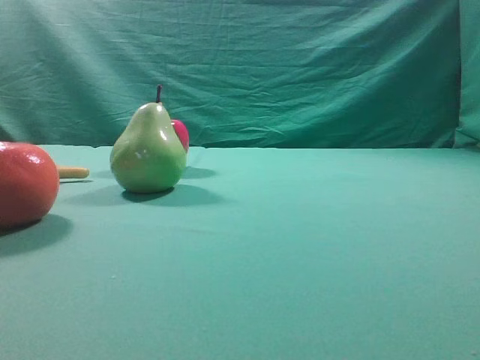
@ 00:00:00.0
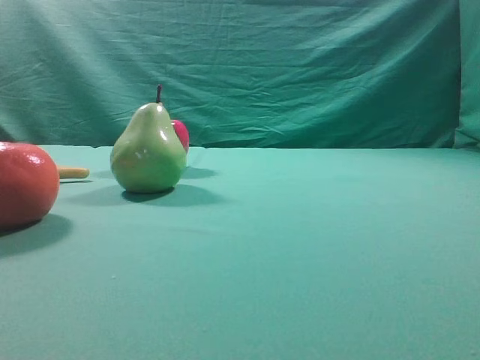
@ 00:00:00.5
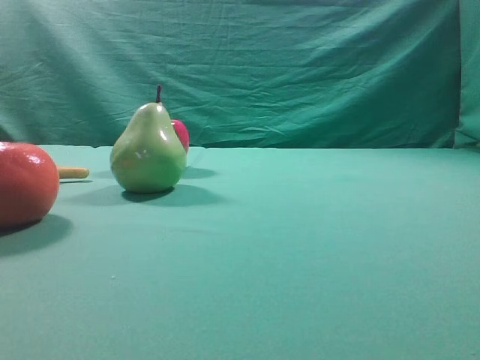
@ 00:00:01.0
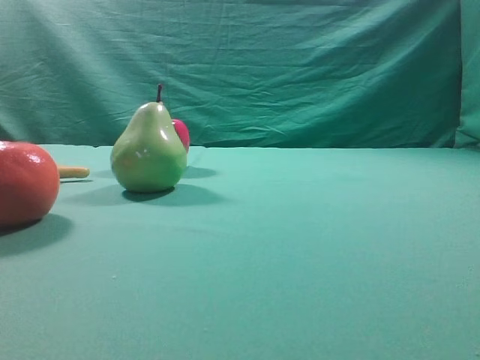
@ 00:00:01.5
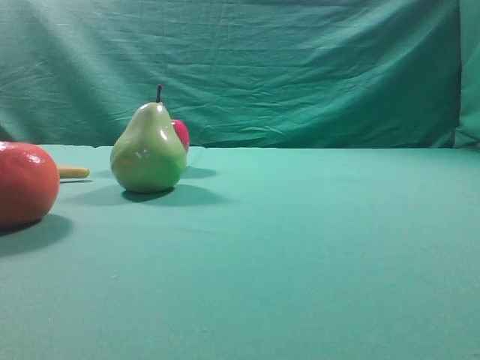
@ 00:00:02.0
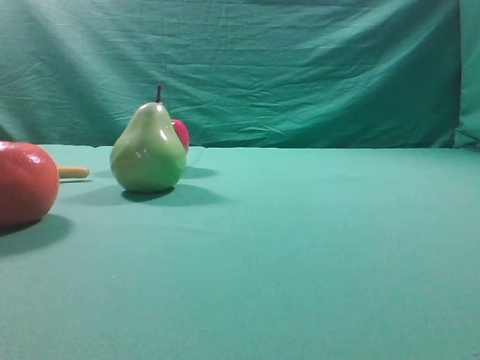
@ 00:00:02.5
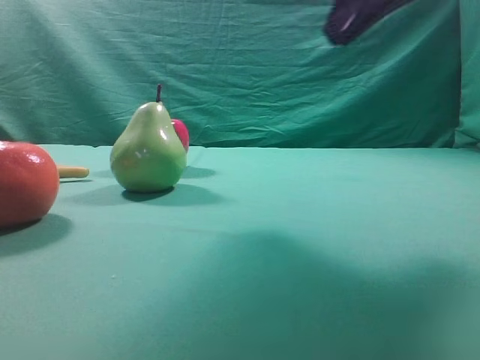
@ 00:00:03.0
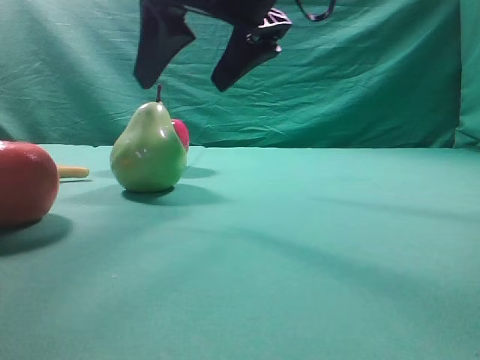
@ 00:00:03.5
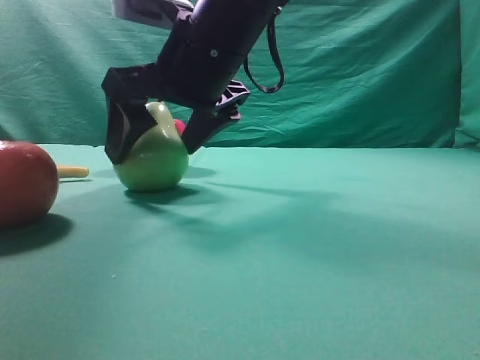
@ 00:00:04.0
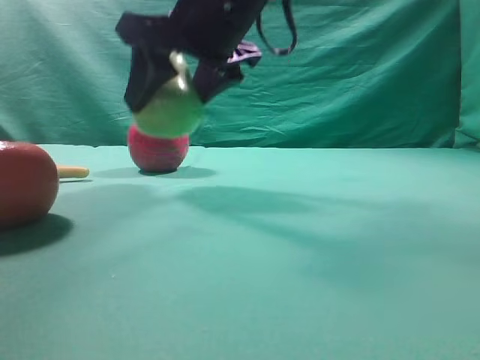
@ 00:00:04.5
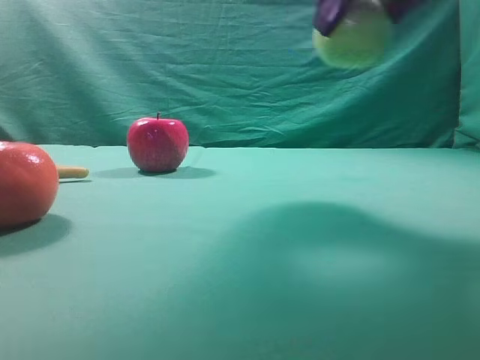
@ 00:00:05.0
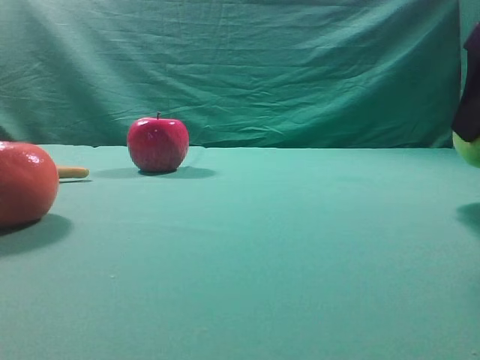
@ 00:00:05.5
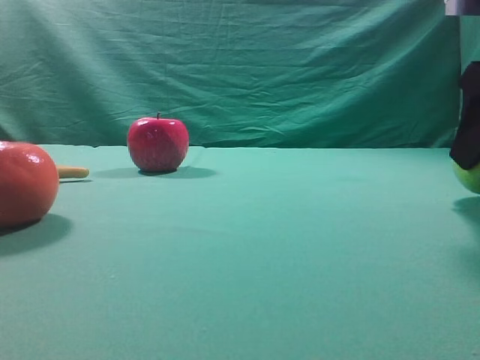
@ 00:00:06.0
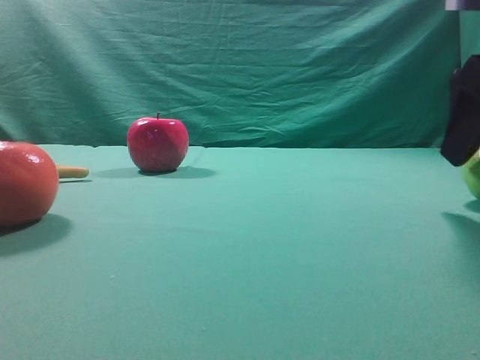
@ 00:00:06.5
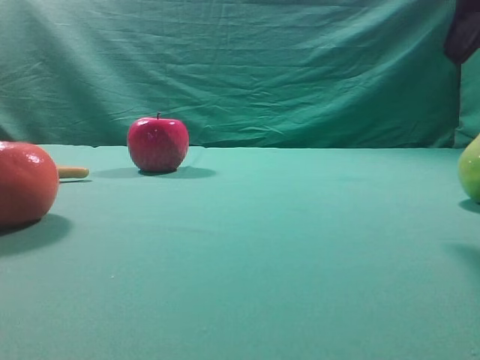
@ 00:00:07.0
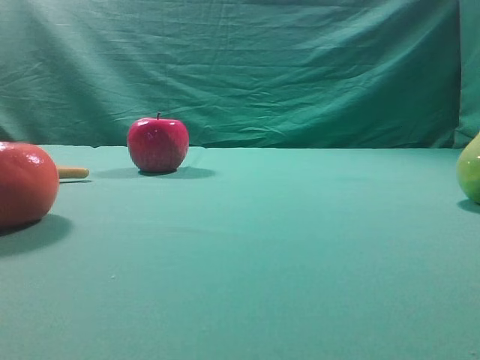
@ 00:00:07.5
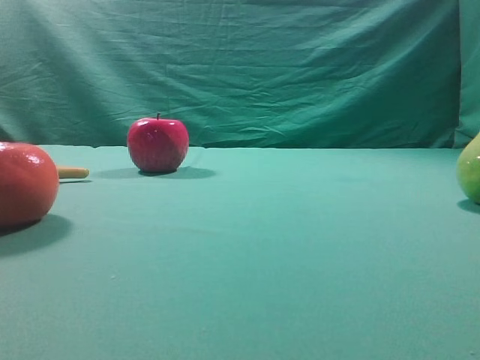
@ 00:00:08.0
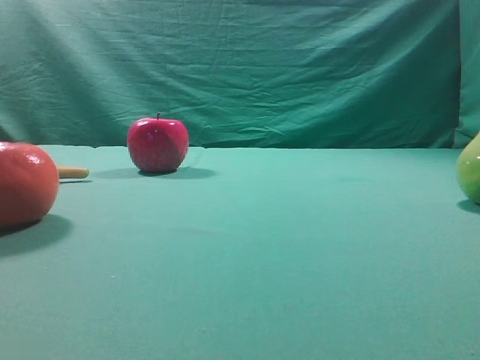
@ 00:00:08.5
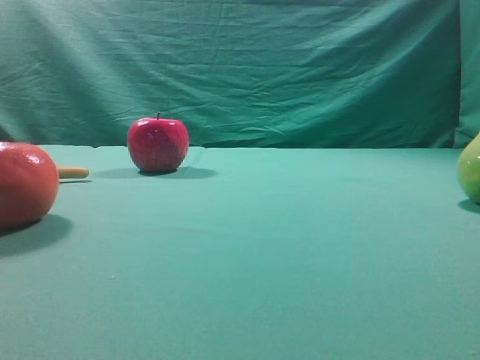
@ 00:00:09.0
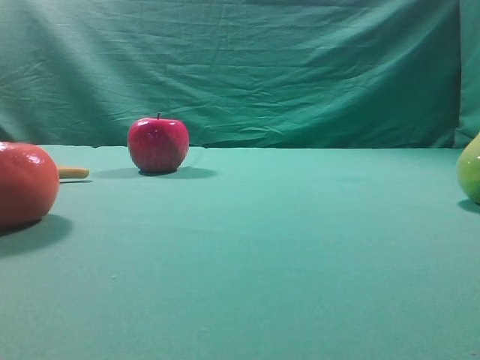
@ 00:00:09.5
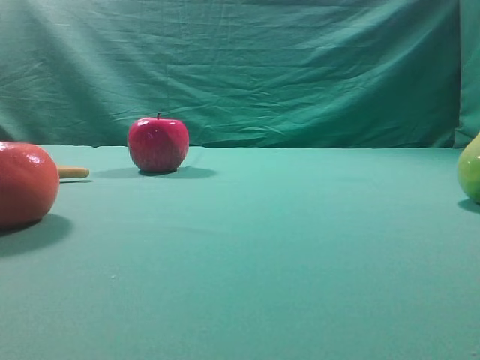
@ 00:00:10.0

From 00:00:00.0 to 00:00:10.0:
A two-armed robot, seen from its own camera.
Task of the whole recording: Grasp the pear and place it on one side of the table.
Step, from 00:00:00.0 to 00:00:04.0: Grasp the high-fiber fruit.
Step, from 00:00:04.5 to 00:00:06.5: Place it on the right side of the table.
